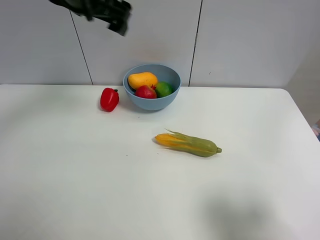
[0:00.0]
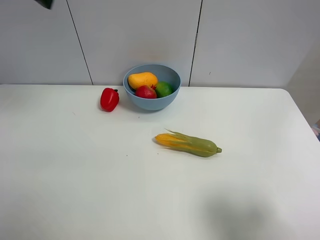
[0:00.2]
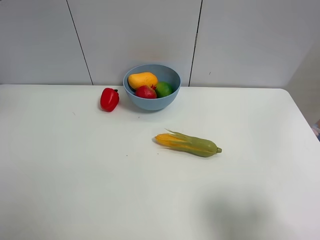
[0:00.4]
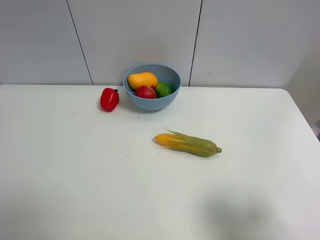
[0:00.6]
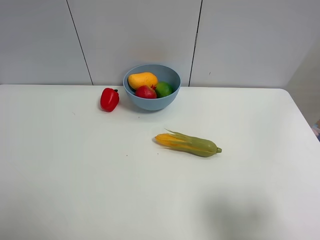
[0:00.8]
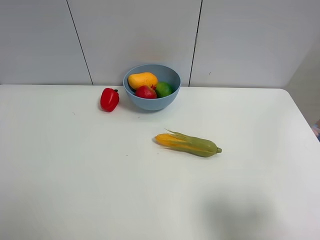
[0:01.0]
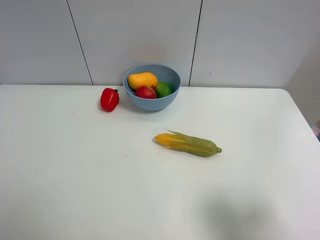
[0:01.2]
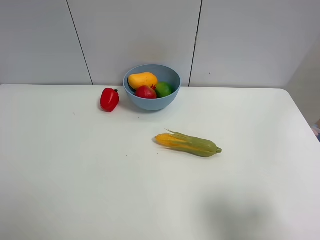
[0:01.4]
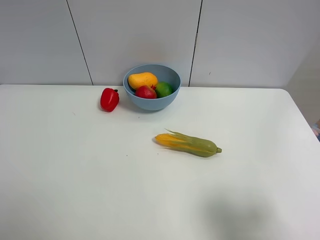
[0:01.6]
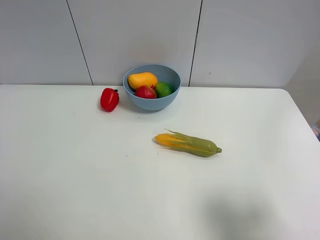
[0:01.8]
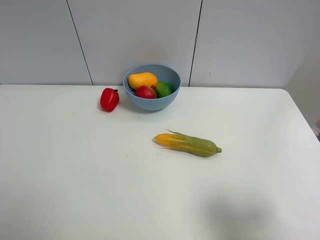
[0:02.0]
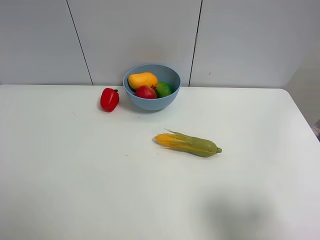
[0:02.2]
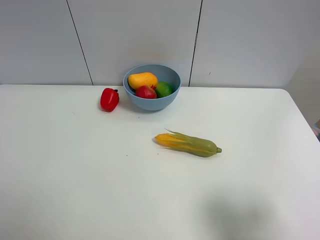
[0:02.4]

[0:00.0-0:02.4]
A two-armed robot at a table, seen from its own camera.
Task of the whole recording: Put the three fruits on the table into a bowl.
0.0 to 1.2 s: The left gripper heads backward and to the left, covering about 40 cm.

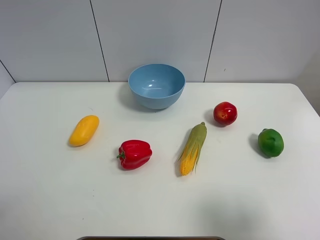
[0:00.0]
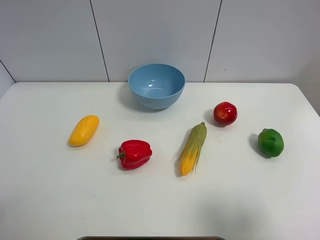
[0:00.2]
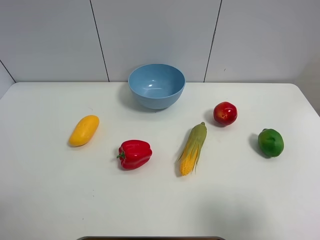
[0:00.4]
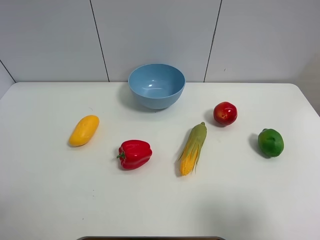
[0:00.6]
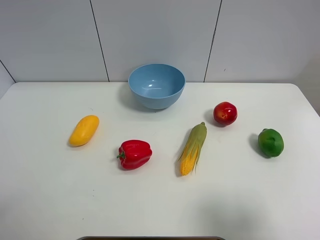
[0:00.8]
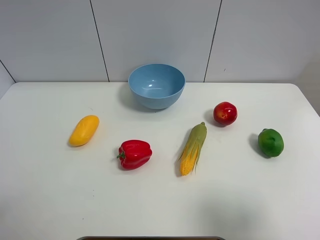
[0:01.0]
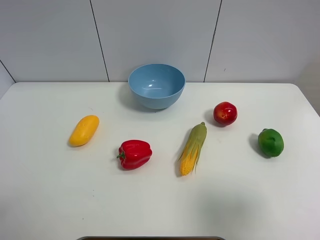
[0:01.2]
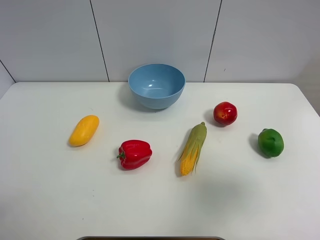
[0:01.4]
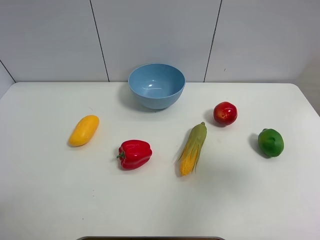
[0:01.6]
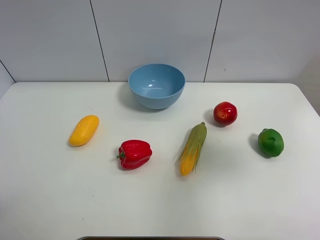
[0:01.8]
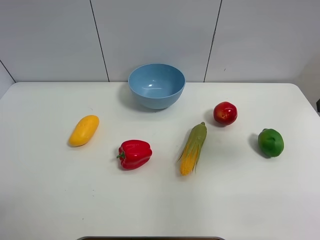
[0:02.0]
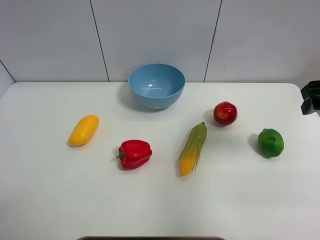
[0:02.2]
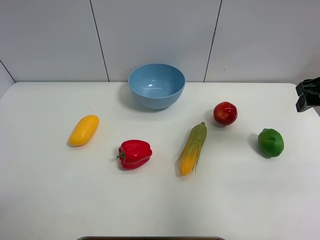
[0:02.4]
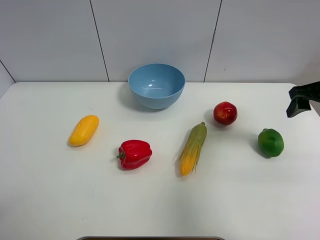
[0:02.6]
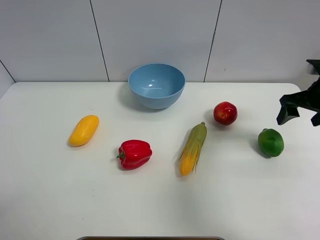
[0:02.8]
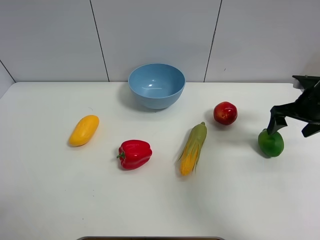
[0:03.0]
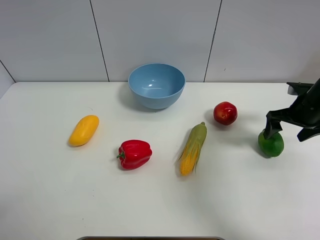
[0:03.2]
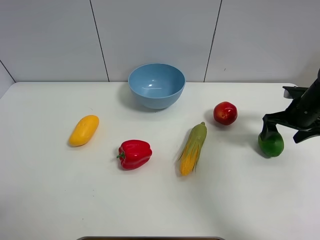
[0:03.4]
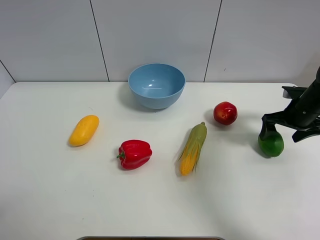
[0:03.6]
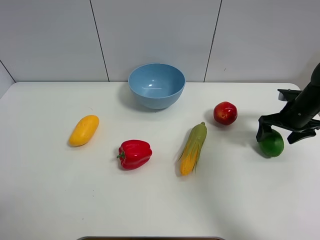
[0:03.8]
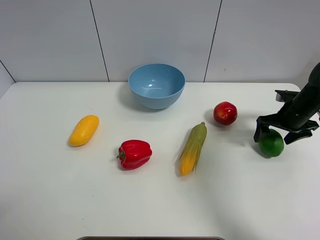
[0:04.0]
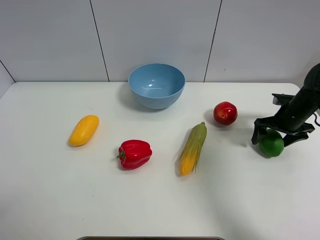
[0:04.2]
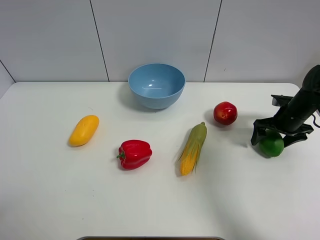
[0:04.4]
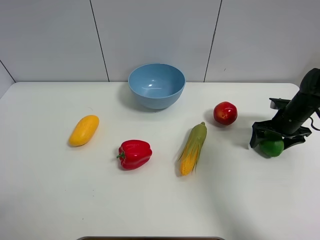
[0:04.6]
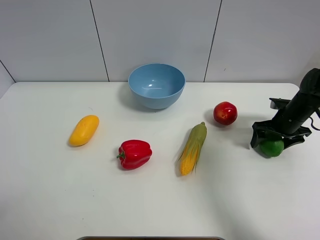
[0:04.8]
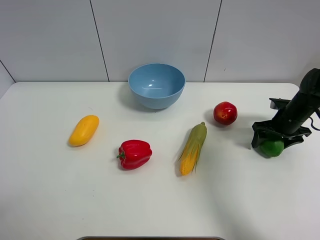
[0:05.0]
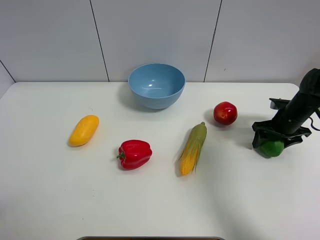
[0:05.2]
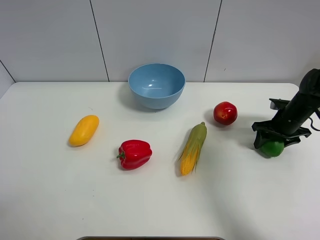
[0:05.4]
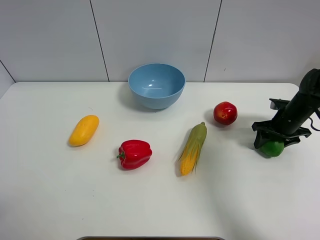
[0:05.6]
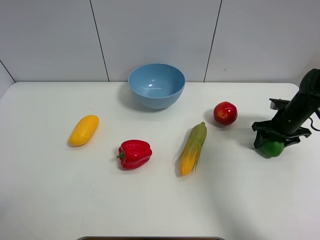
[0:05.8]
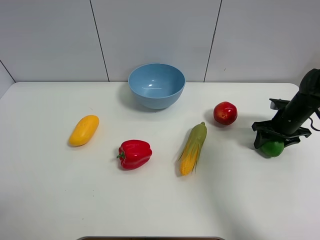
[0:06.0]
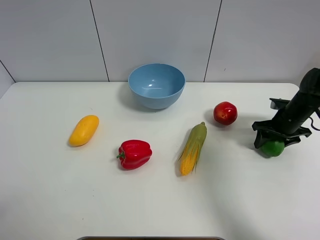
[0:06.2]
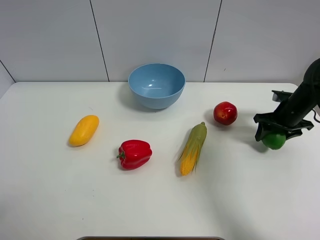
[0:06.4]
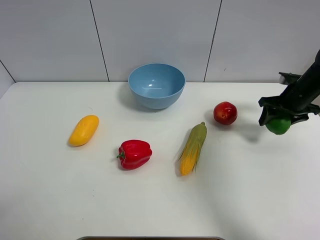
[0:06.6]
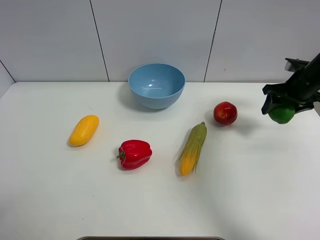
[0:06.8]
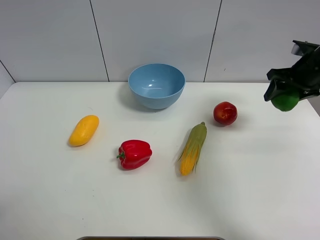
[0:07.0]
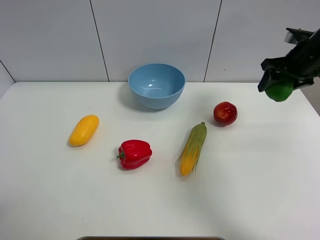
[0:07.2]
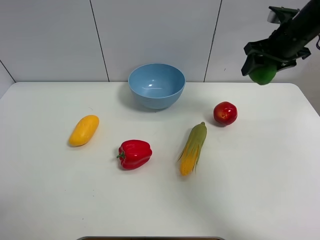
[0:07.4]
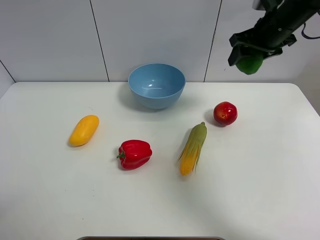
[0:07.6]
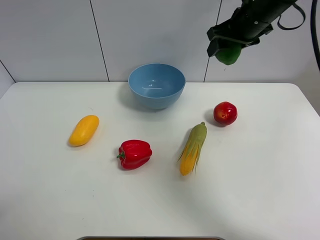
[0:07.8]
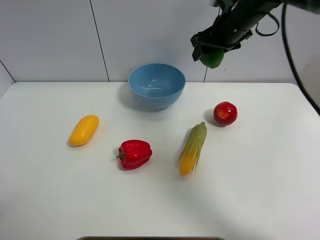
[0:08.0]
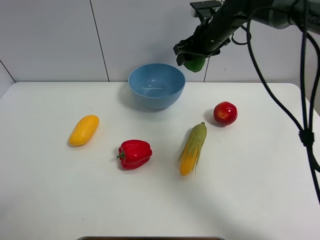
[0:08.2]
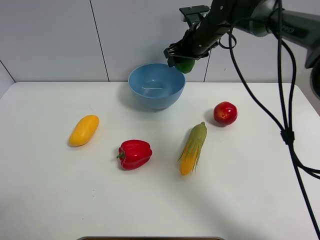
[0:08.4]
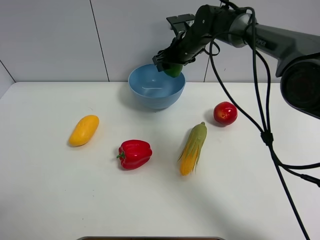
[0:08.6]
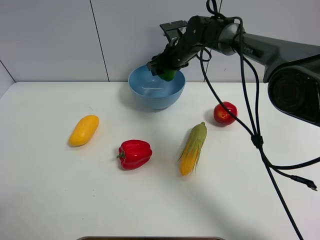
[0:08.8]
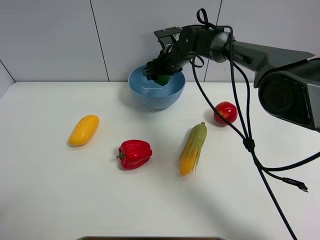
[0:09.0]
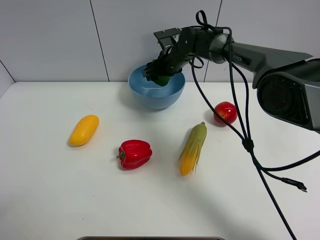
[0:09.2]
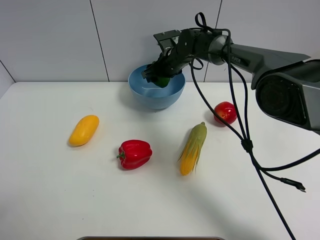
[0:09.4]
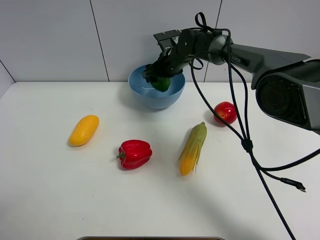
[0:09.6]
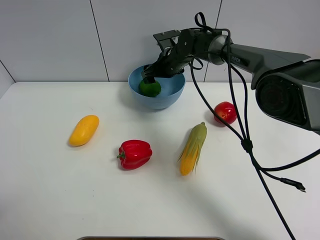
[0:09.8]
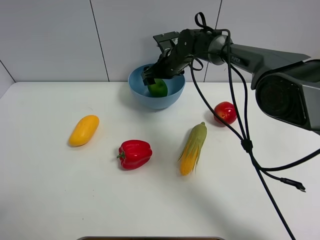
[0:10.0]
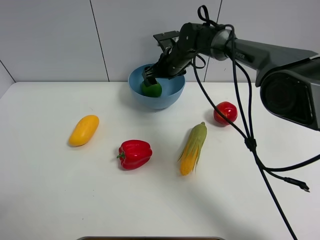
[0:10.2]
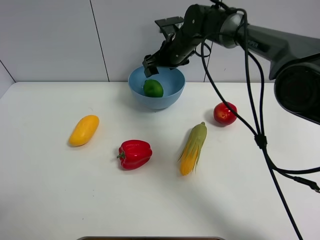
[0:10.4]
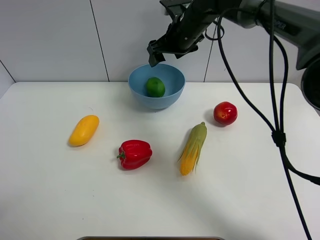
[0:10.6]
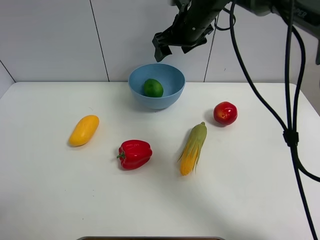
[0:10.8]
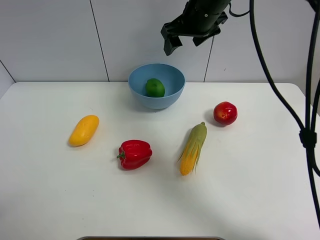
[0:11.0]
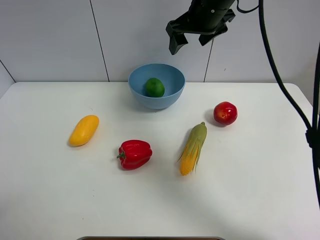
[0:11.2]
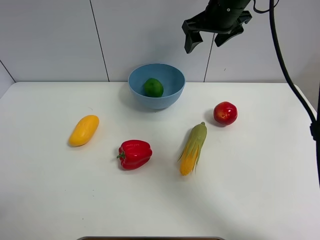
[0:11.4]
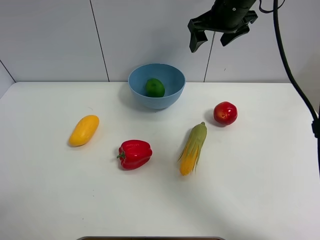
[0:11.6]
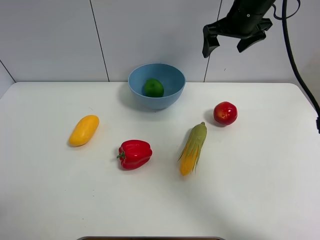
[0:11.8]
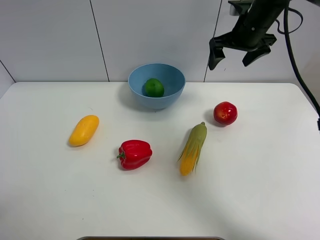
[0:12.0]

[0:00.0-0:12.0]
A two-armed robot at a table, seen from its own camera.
Task of the whole recording: Put the three fruits on the table into a bowl.
Step, 0.0 to 5.4 s: Grasp the green lemon with right gripper.
Step, 5.6 to 10.0 s: Place the green lemon in the blue bowl with right gripper.
0.0 to 1.6 s: The right gripper moves forward and upward, approximately 15 cm.
1.6 to 3.0 s: The right gripper goes about 25 cm forward and downward, and opens up.
3.0 to 4.4 s: The right gripper shifts about 10 cm downward.
4.4 to 6.0 s: The right gripper closes.
6.0 to 7.6 s: The right gripper travels upward and to the left by some 25 cm.
7.6 to 9.0 s: The right gripper goes some 25 cm to the left, downward and forward.
9.0 to 10.4 s: The right gripper changes place by some 5 cm, and opens up.
10.4 to 12.0 s: The right gripper travels to the right and upward by roughly 15 cm, and opens up.

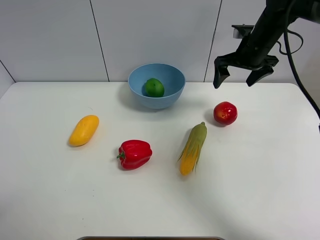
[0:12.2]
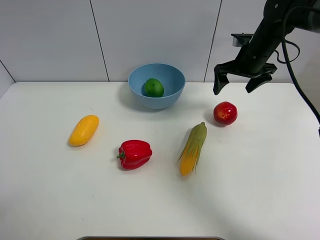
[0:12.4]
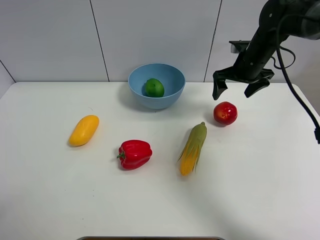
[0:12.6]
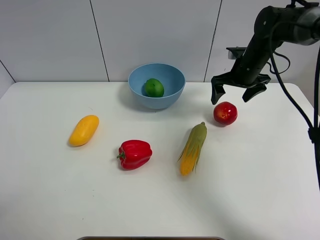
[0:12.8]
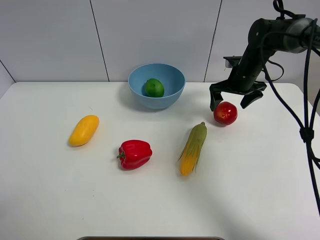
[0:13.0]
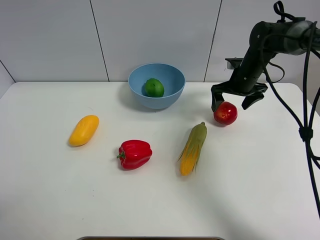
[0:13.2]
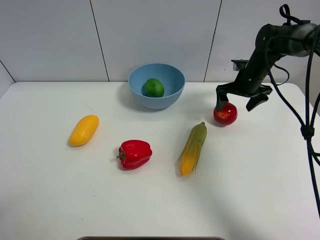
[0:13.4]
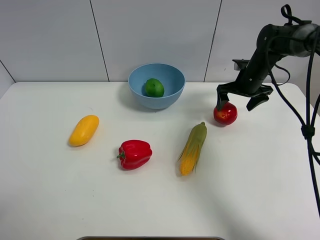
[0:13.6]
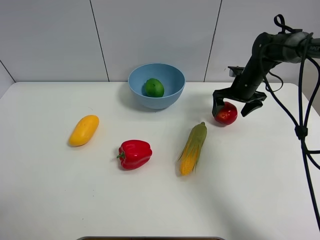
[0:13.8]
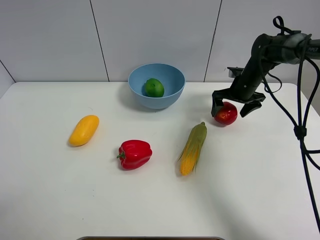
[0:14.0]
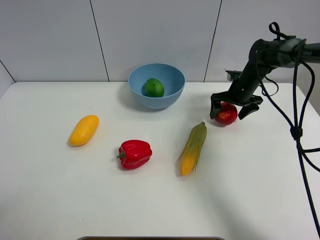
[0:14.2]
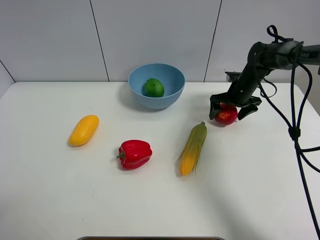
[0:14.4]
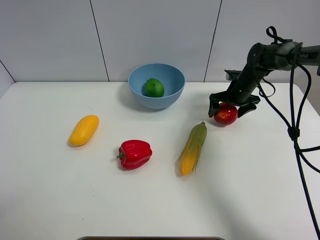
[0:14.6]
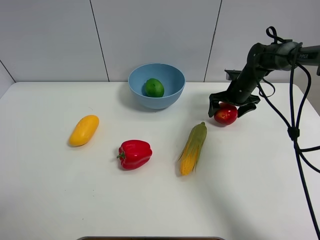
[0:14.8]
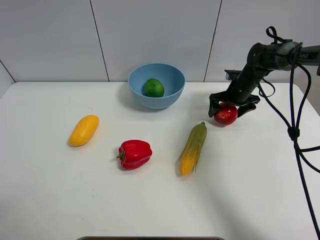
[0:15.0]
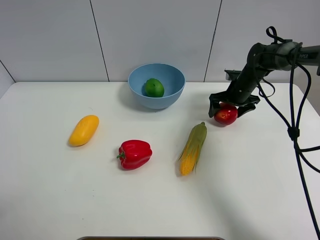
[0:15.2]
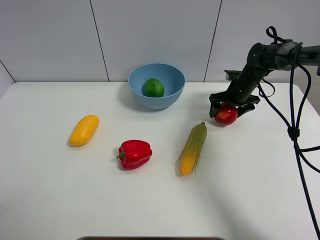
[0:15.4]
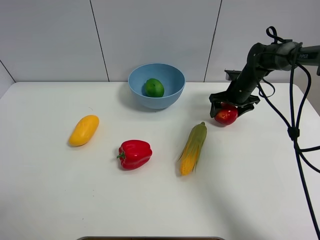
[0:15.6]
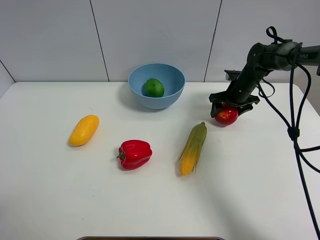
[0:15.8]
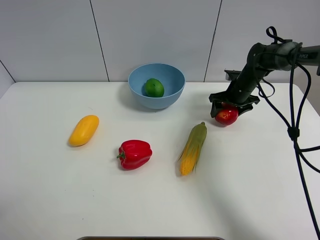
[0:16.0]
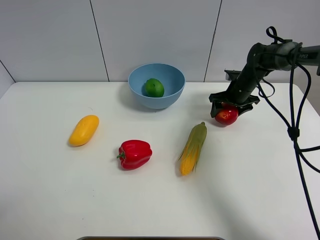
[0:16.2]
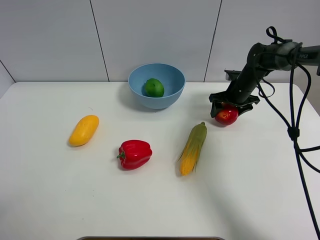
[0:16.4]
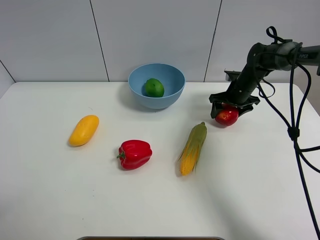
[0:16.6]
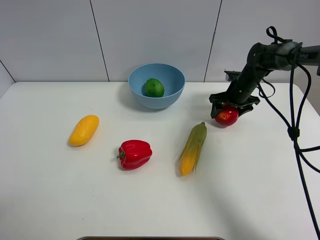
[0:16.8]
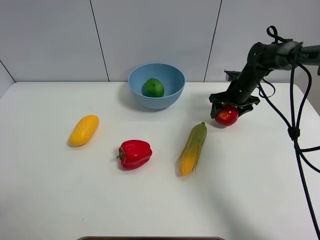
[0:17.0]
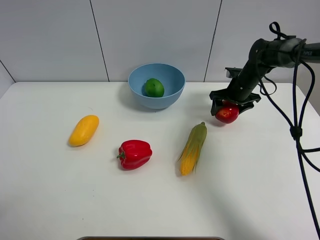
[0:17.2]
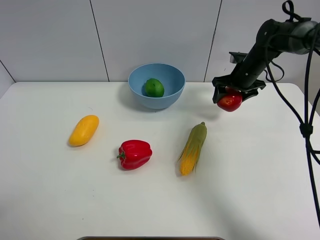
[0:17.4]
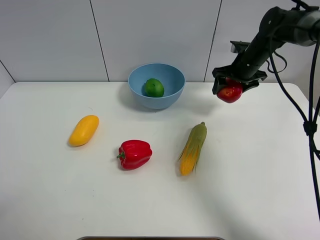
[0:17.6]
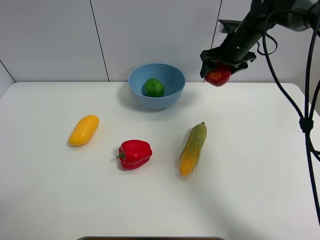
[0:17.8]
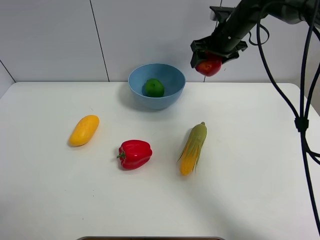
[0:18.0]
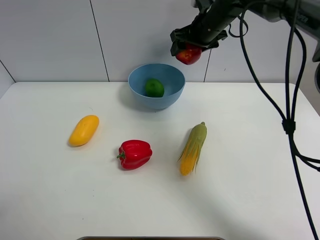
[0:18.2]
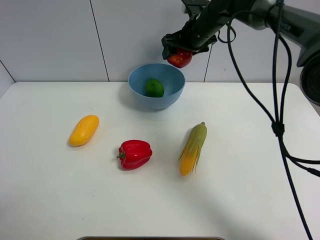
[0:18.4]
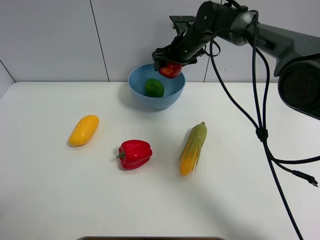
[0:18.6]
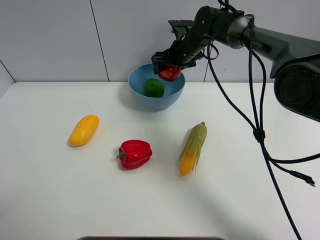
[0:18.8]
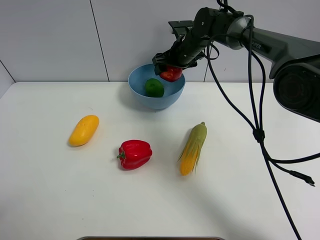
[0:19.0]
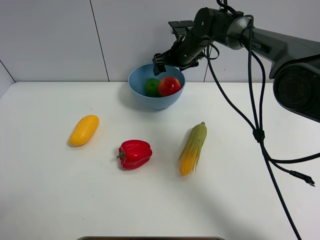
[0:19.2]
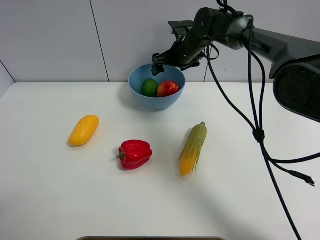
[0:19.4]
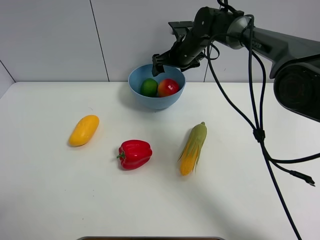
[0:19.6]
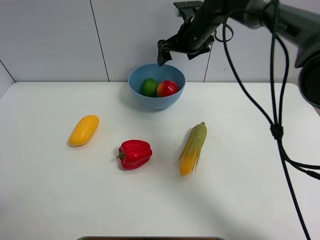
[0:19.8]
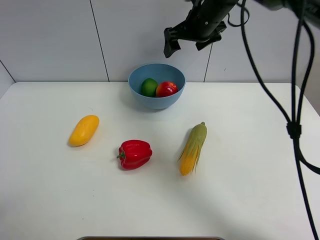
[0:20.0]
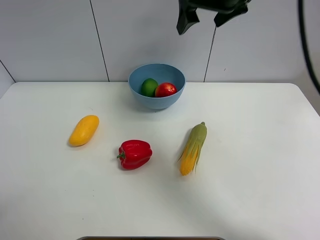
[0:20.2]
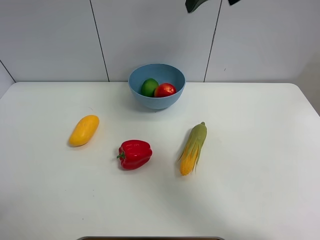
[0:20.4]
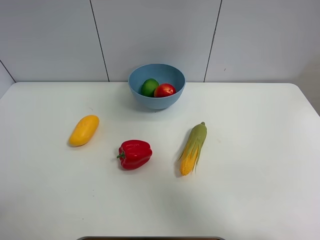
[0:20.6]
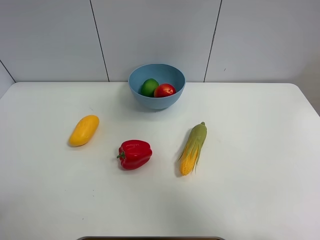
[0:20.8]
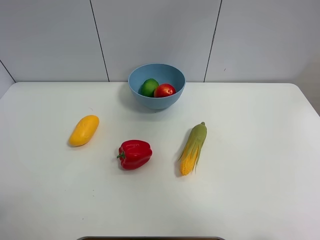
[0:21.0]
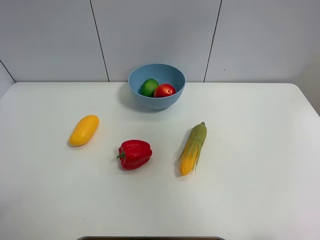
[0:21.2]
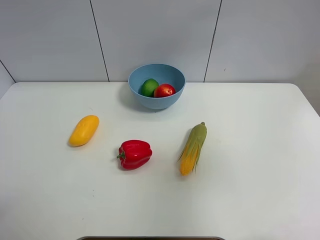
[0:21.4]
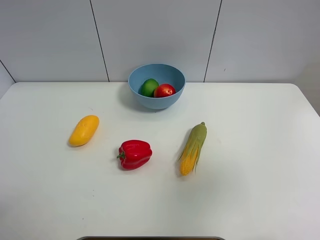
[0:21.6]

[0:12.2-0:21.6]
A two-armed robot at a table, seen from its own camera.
Task of the whole recording: Put the three fruits on the table into a bowl.
Step, 12.2 to 15.6 s: Grasp the pomegranate with right gripper.
Step, 15.8 to 19.2 s: Place the pomegranate in the blue bowl with right gripper.
12.2 to 13.8 s: The right gripper heads downward, covering some 10 cm.
13.8 to 15.4 s: There are only small adjustments of the grippers.
15.4 to 17.0 s: Both grippers stay put.
17.0 to 18.4 s: The right gripper goes approximately 20 cm to the left and upward.
18.4 to 20.0 s: The right gripper travels upward and backward by about 10 cm, and opens.
20.0 to 21.6 s: The right gripper goes approximately 40 cm backward and to the right.
